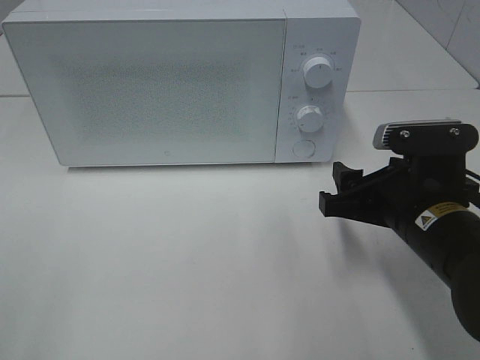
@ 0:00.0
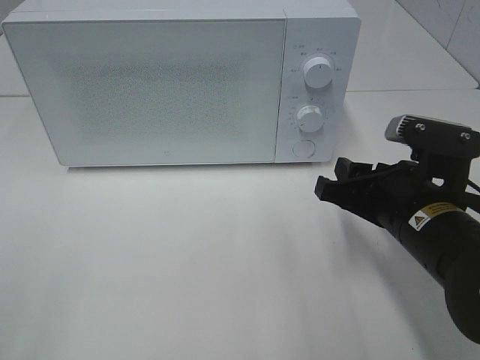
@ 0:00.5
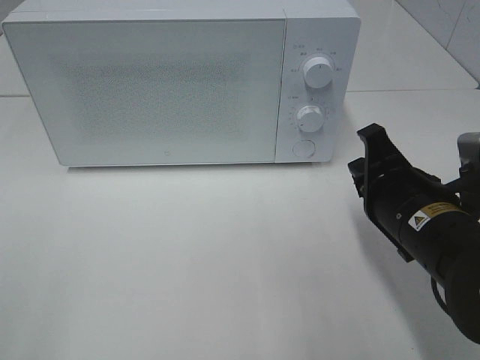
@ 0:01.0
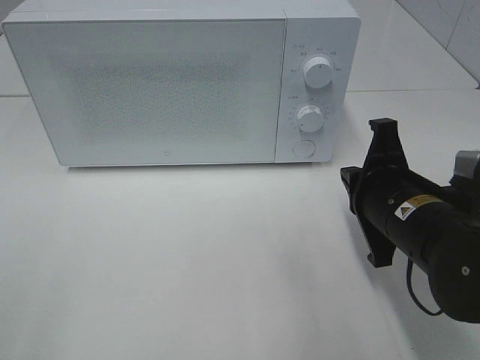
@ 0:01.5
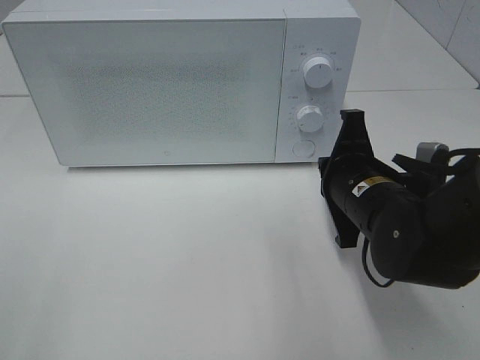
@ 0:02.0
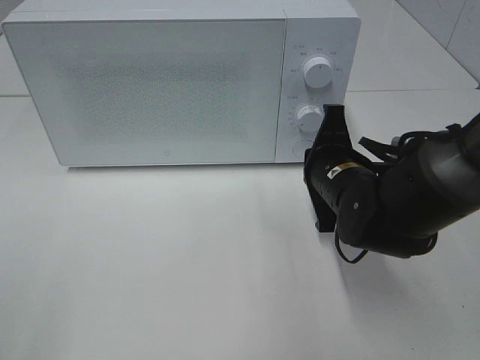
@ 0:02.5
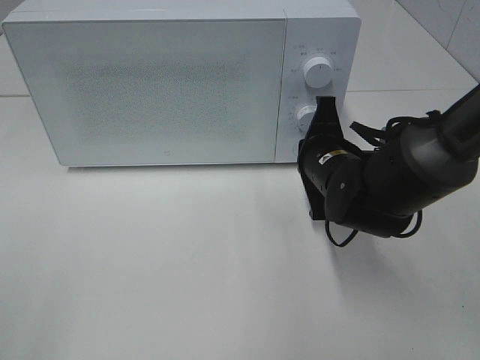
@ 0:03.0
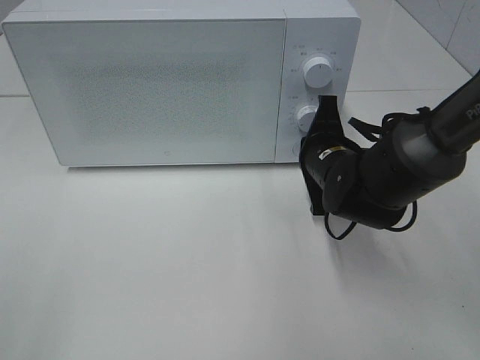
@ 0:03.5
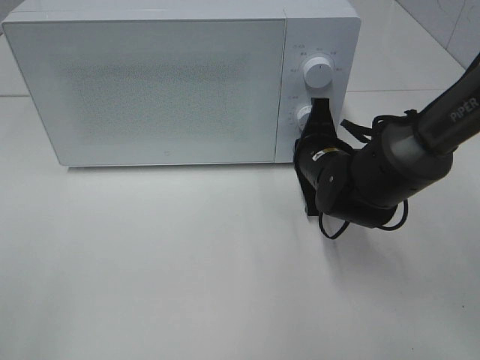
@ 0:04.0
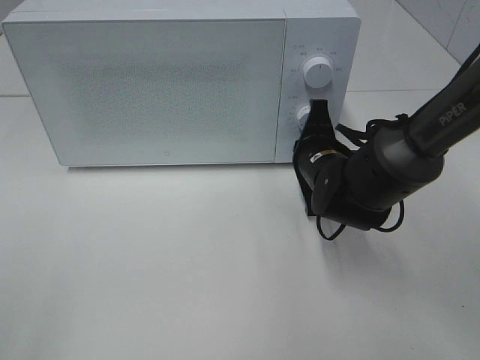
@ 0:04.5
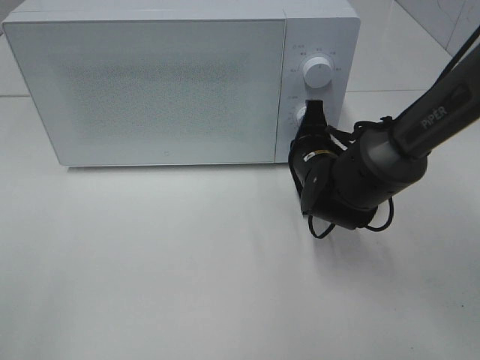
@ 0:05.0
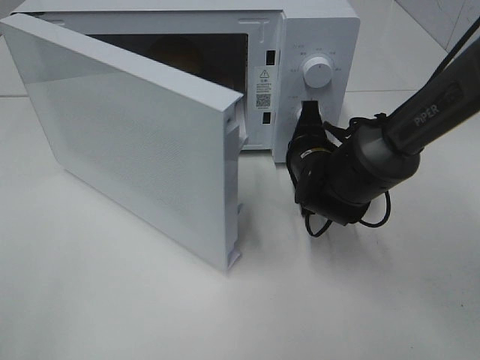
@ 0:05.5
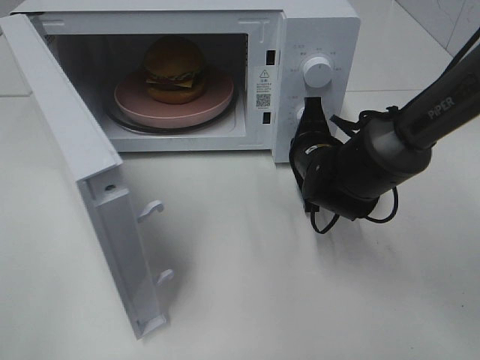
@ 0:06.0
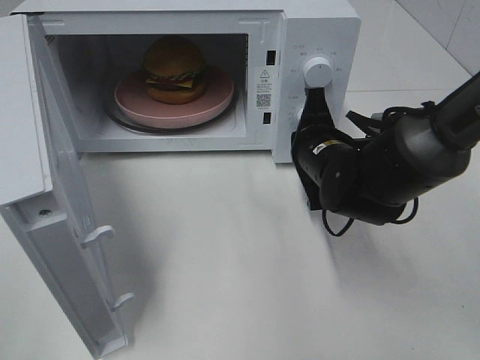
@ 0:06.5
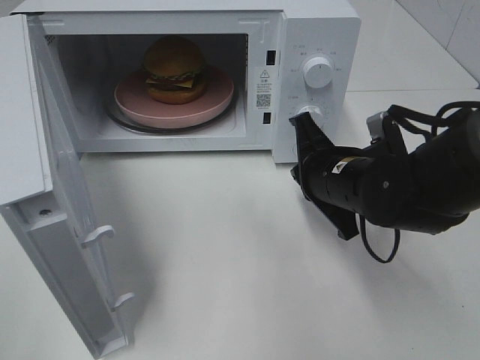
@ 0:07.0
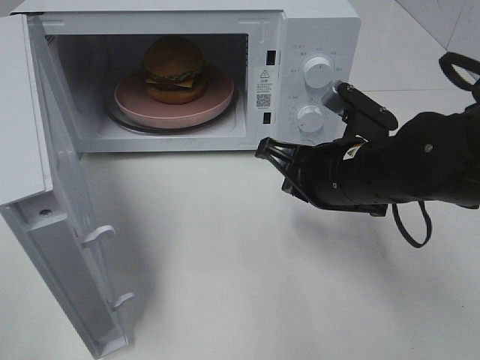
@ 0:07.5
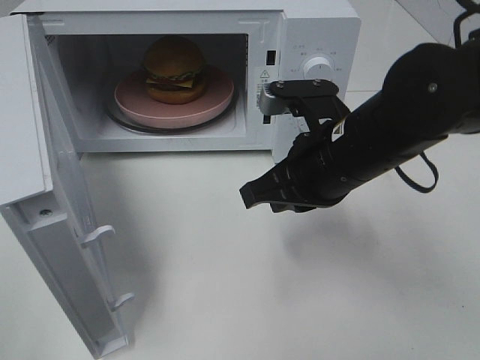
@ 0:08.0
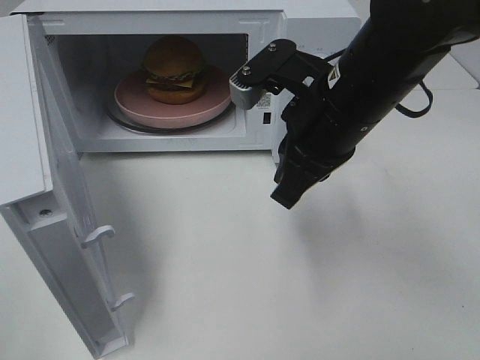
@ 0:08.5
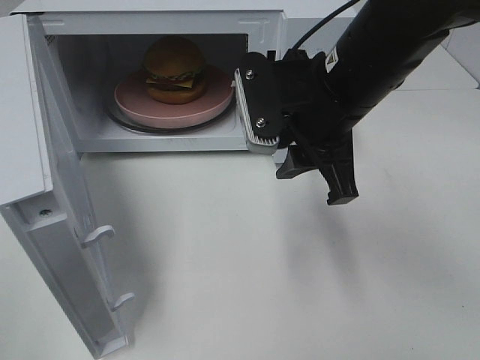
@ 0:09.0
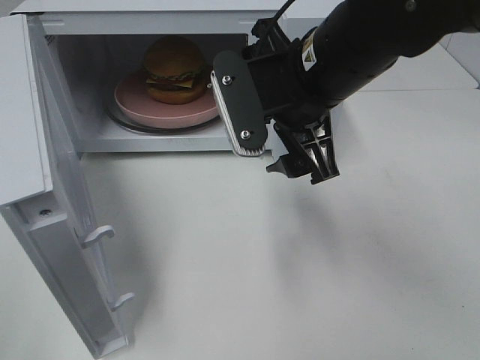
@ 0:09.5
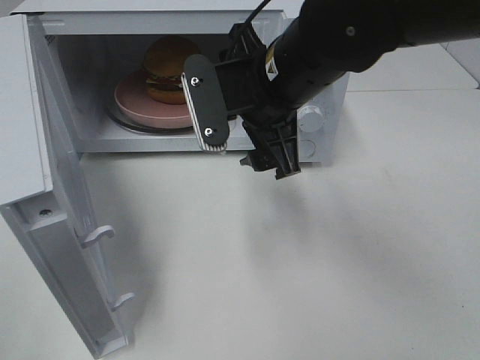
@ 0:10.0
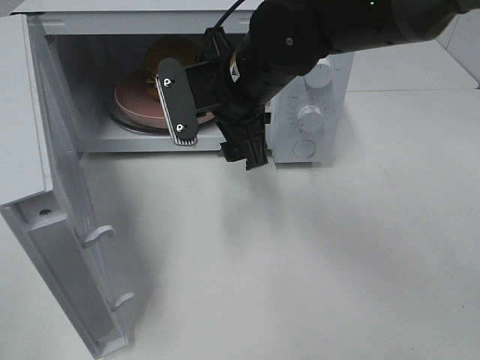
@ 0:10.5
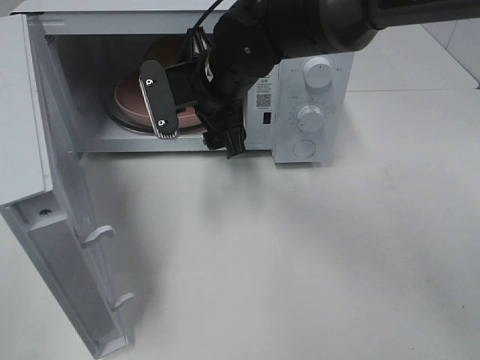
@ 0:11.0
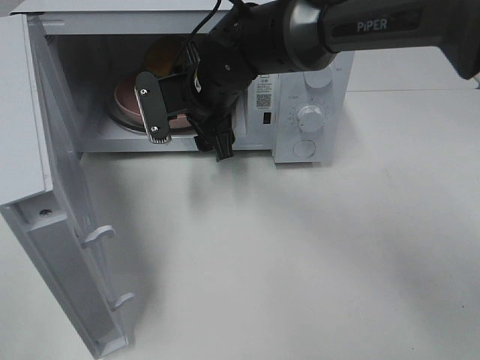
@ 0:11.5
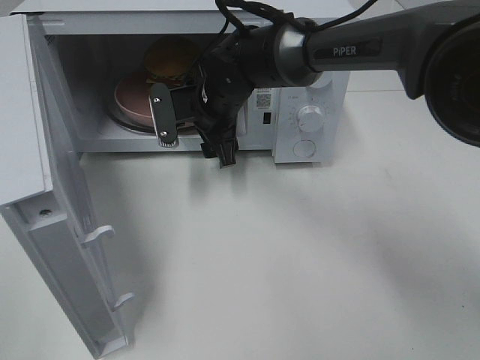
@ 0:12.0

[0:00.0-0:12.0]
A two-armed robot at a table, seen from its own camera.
Task of the whole recording: Heat the burger.
Step, 0:00.0 to 0:06.0: Right hand: press the switch.
0:00.0 to 0:02.0: The right gripper shifts by some 5 cm, and closes.
0:02.0 to 0:04.0: The right gripper shifts roughly 10 cm forward.
0:06.0 to 0:08.0: The right gripper moves upward and backward, about 15 cm.
0:08.0 to 0:10.0: The right gripper is displaced to the left by some 5 cm, and opens its fingers.
0:10.0 to 0:12.0: The right gripper heads forward, downward and to the left, covering roughly 15 cm.

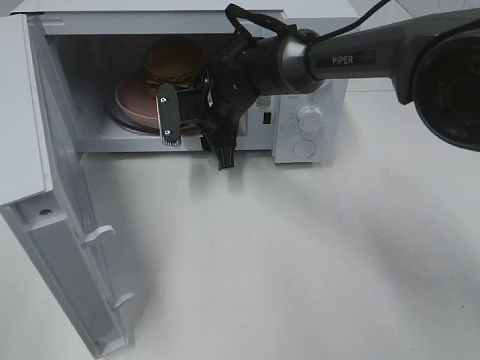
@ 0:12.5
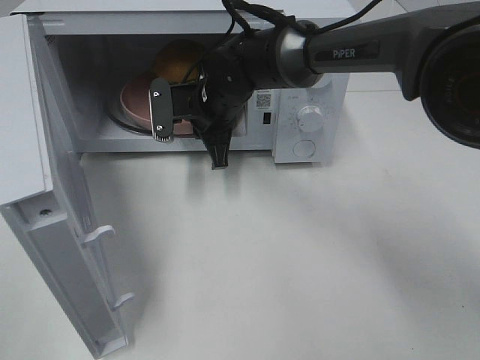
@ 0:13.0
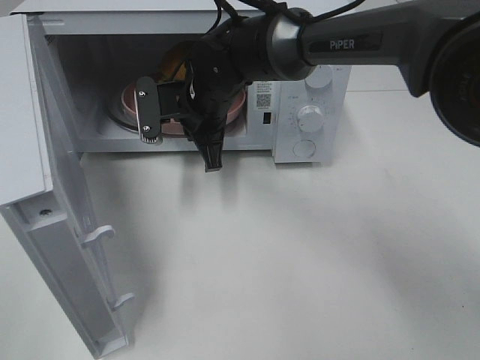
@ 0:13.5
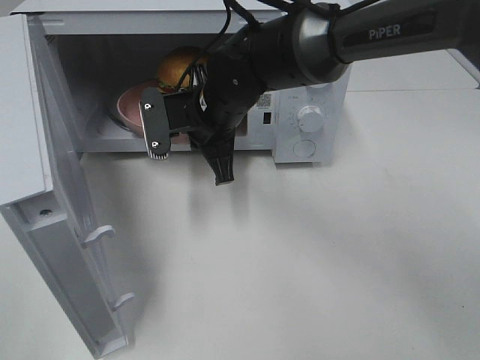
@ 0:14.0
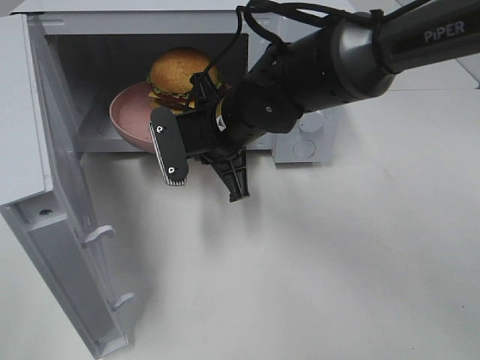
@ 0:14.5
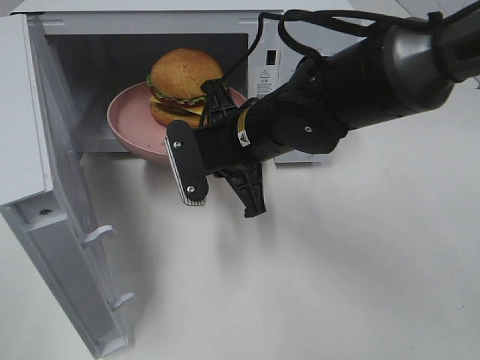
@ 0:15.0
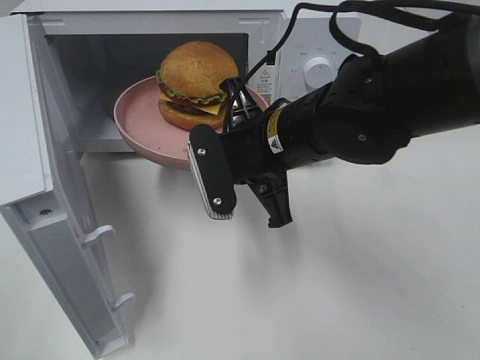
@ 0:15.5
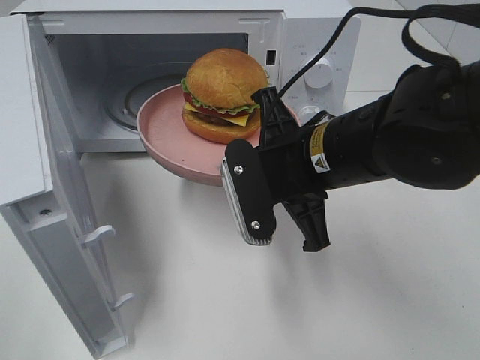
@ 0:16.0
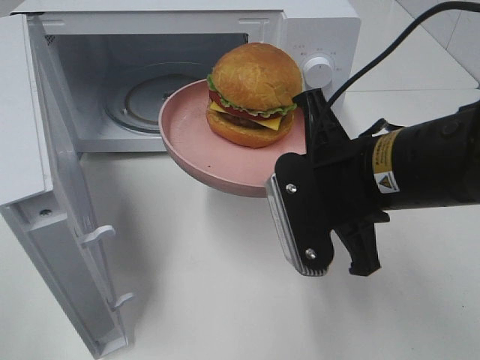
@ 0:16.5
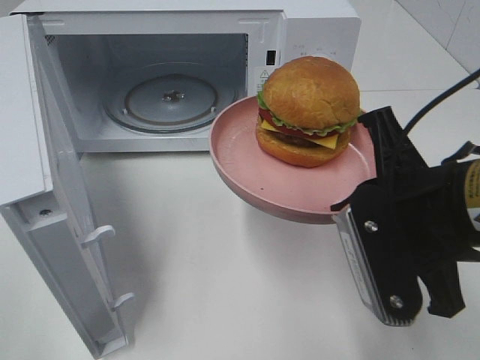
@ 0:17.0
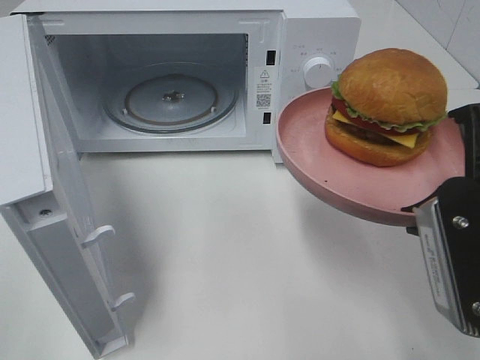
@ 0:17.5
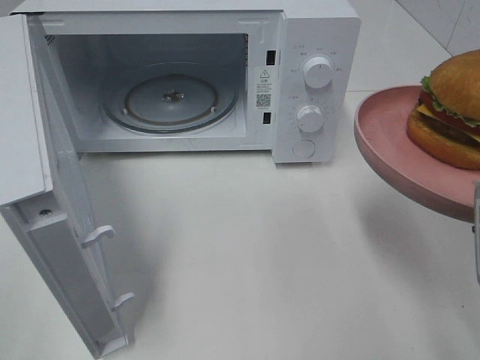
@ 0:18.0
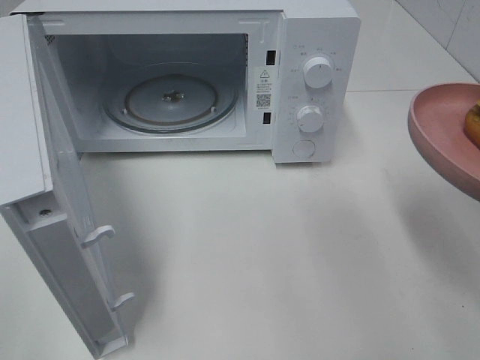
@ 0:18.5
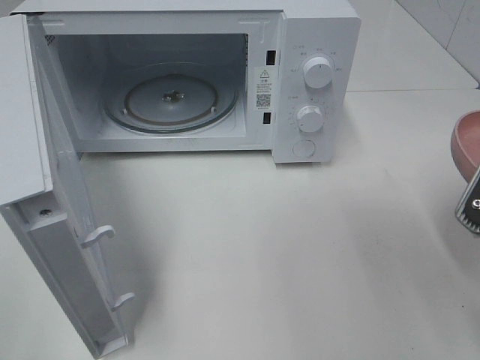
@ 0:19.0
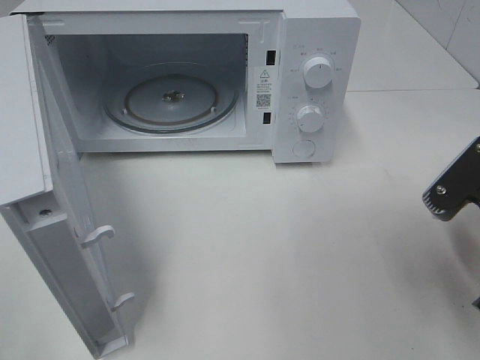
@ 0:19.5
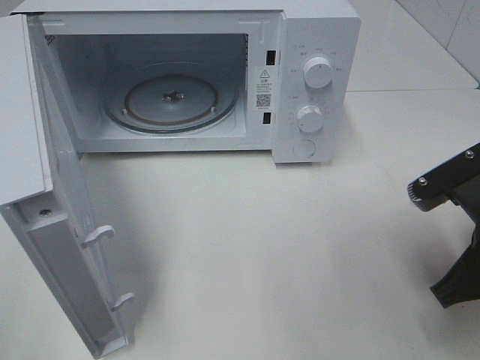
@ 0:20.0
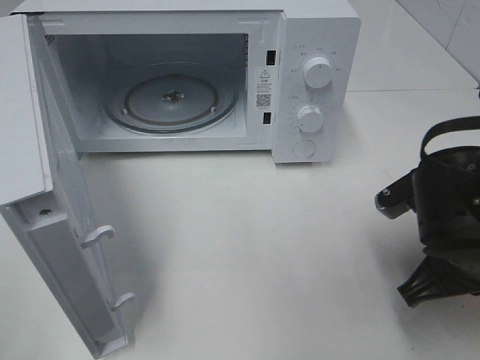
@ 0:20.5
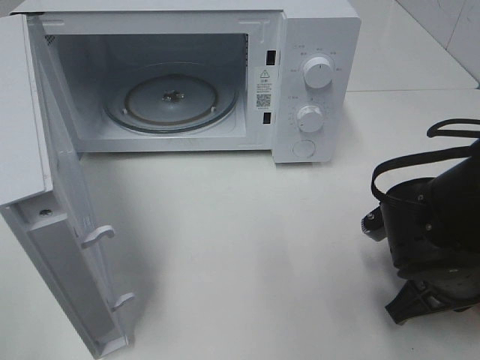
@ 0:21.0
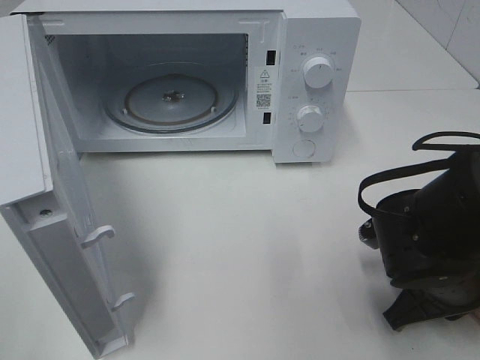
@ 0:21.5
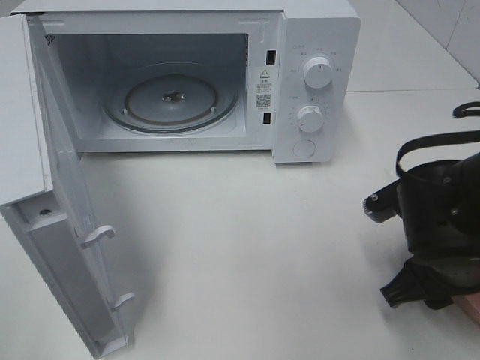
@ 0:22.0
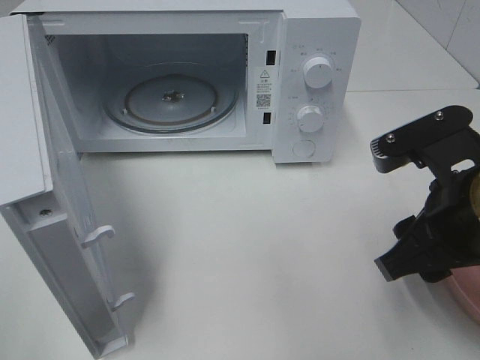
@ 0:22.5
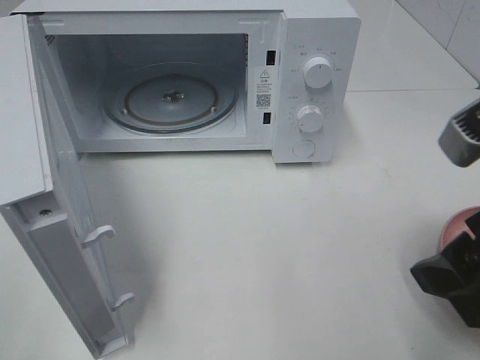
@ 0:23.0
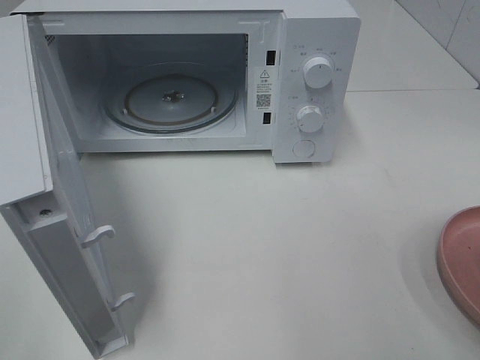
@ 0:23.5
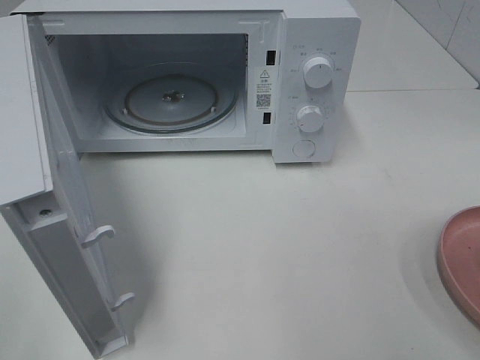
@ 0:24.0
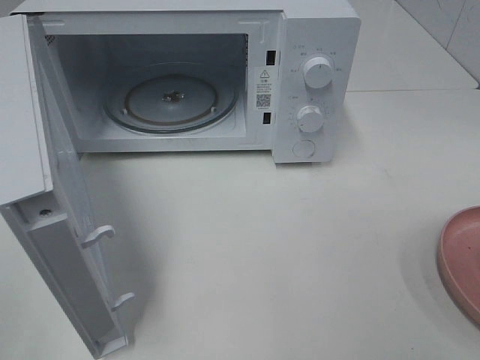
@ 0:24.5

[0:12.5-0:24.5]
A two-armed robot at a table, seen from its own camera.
Task of the whole recording: Heat the burger.
Step, 0:13.5 to 0:21.5: Right hand: place the plate on the table.
0:12.5 to 0:14.5: The right gripper shifts some 10 cm backward, and closes its fingers.
0:14.5 to 0:16.5: The right gripper heads backward and to the right, covering about 15 cm.
0:16.5 to 0:18.5: The right gripper travels to the right and backward by about 15 cm.
0:18.5 to 0:20.5: The right gripper heads downward and forward, covering roughly 15 cm.
0:20.5 to 0:22.5: The right gripper shifts some 5 cm upward, and opens its fingers.
0:22.5 to 0:24.5: The right gripper shifts approximately 15 cm backward, to the right and upward.

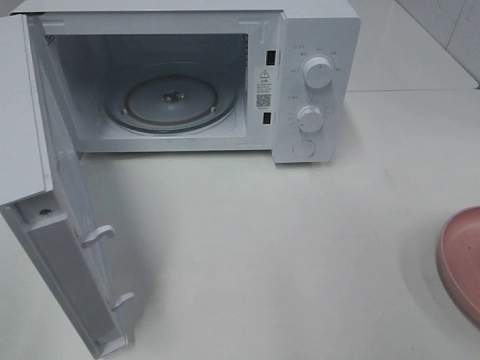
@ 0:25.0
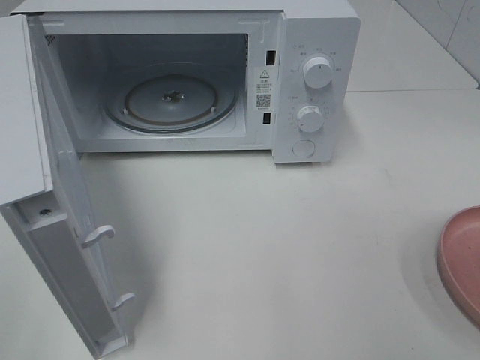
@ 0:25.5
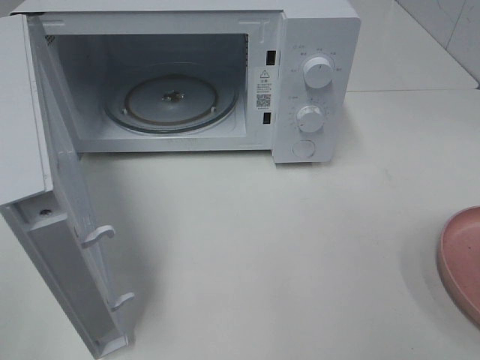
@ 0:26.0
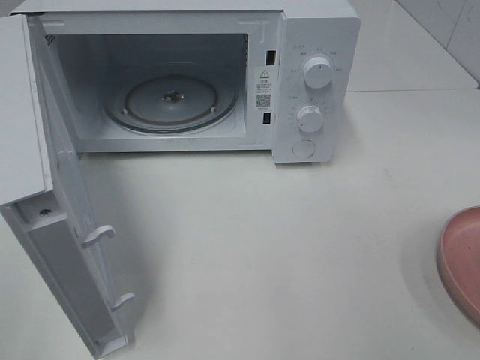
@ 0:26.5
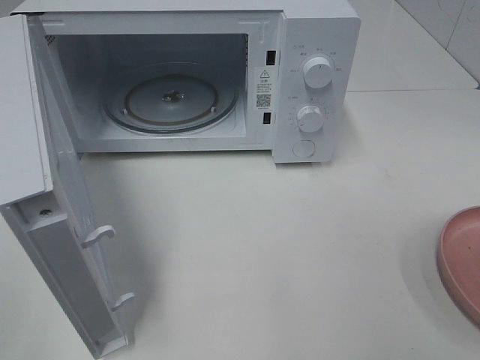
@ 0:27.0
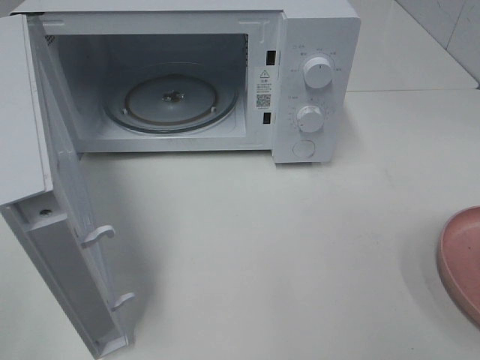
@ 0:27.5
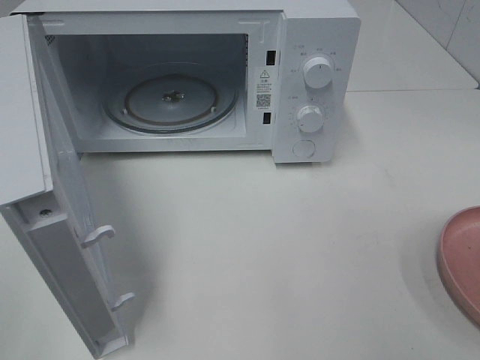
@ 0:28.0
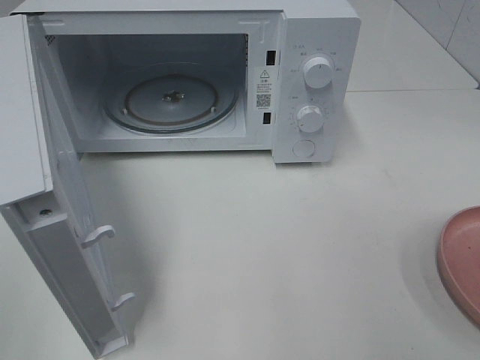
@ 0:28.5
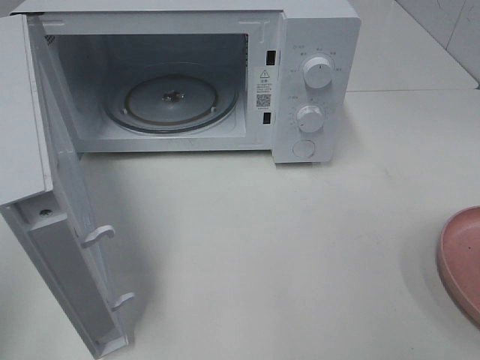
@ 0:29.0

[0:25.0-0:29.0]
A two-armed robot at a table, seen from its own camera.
Task of the whole recording: Heat the burger.
0:25.0 to 0:27.0: Both grippers stay about where they are.
